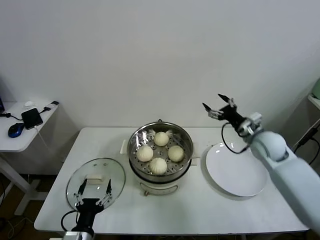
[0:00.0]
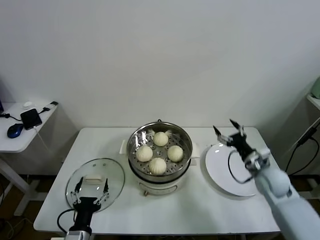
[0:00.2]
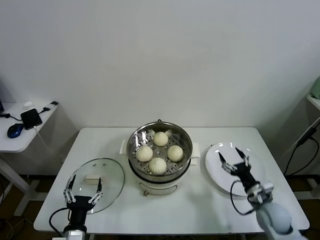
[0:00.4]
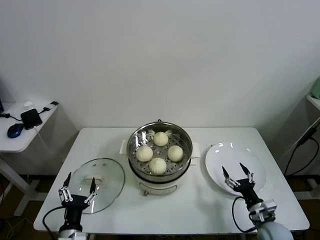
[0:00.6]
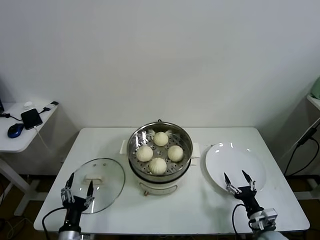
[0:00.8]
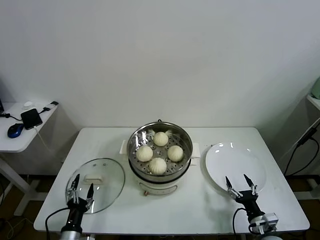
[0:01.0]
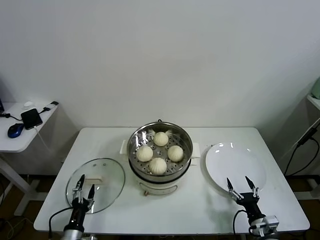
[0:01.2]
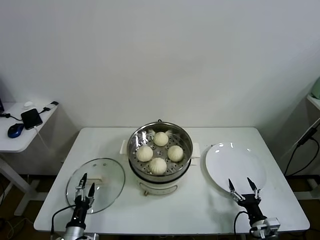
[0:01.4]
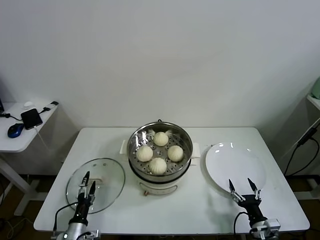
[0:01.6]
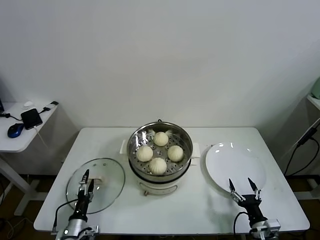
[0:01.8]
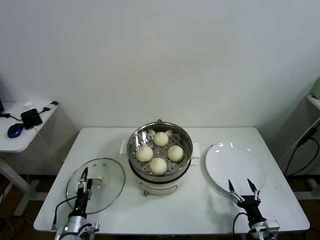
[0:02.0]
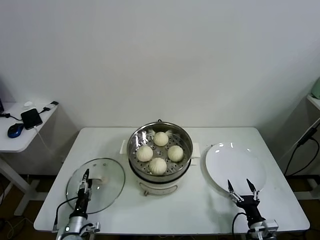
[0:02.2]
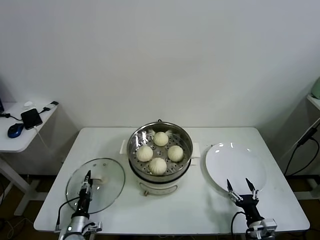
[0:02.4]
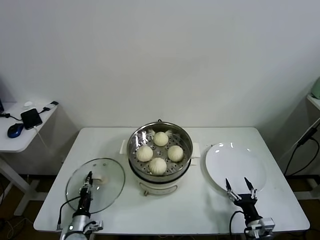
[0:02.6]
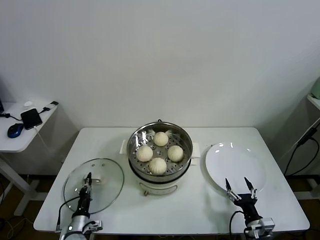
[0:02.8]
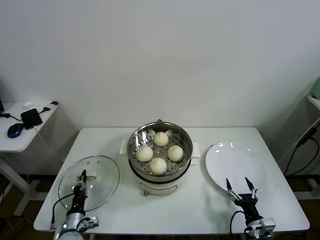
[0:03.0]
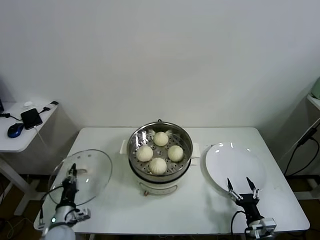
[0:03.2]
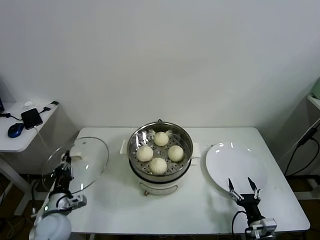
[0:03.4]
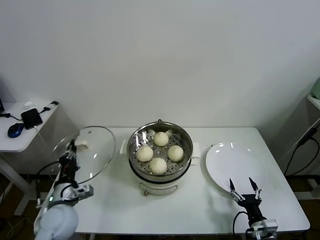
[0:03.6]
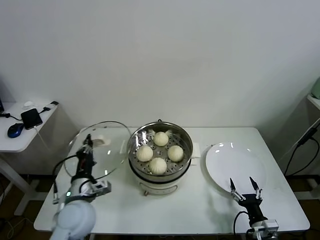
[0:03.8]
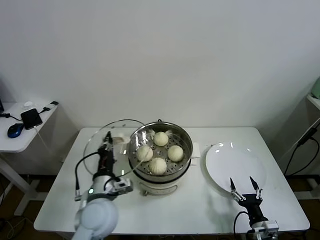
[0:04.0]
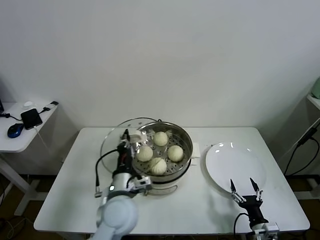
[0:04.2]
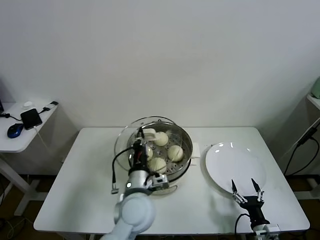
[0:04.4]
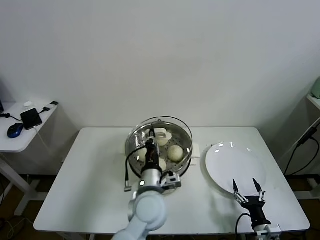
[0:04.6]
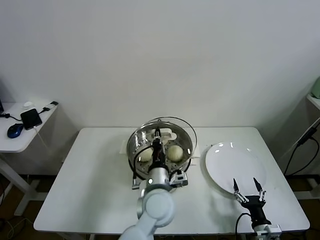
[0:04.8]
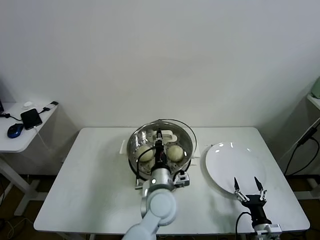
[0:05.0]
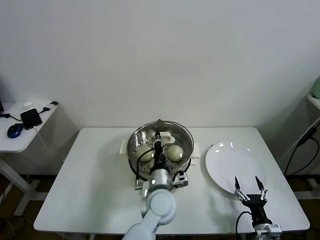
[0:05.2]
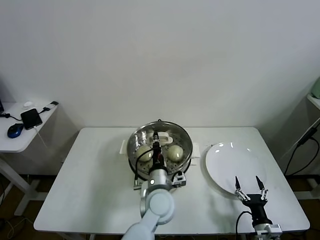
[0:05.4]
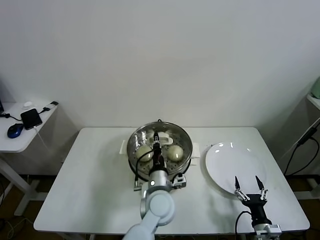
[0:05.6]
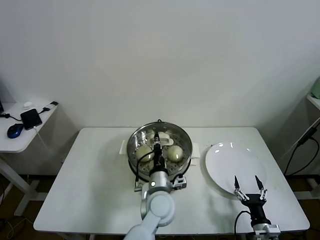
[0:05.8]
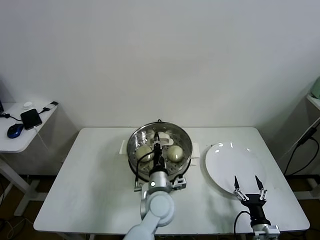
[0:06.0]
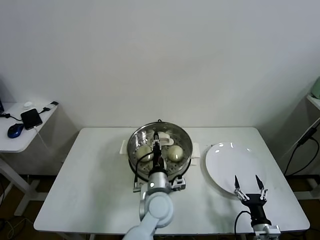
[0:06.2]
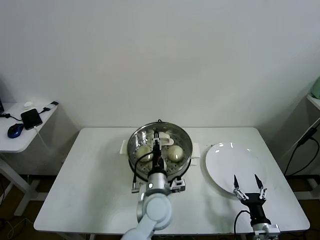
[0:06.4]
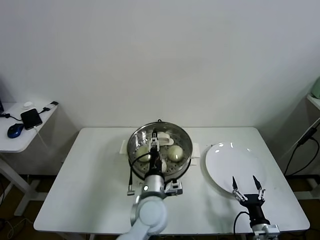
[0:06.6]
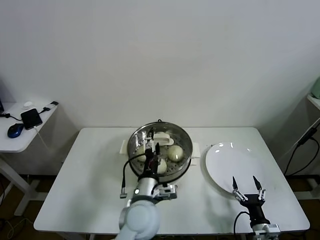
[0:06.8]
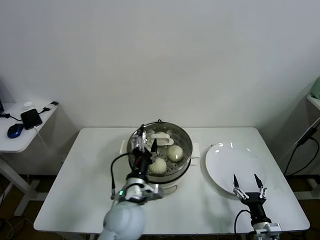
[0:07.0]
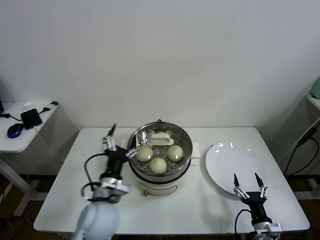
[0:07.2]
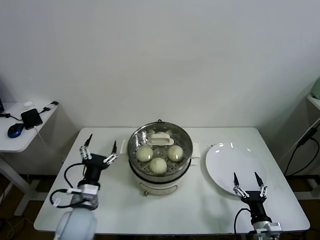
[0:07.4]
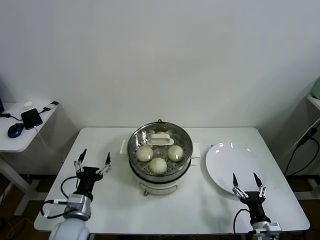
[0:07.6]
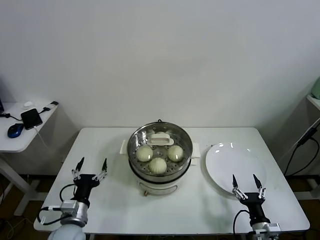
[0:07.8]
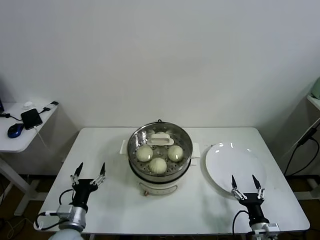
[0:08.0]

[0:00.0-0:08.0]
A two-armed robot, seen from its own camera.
Task of the whole recording: take steamed baozi put them in steamer.
Step, 0:00.0 to 0:02.8: Grasp the pot lid with left gripper.
Step, 0:03.0 to 0:06.6: Place the pot lid on the steamer with left gripper.
0:00.0 to 0:01.6: The right gripper moves backward and downward, approximately 35 cm. The left gripper travels downward, to the left and forward by about 15 cm.
0:01.6 to 0:03.2: The left gripper ends up some 5 cm from where it was, and closes up.
0:03.2 to 0:04.8: The left gripper goes some 35 cm to the right and upward.
0:04.8 to 0:06.4: The left gripper opens up.
0:06.4 to 0:08.0: The left gripper shifts some 25 cm to the left, and opens up.
